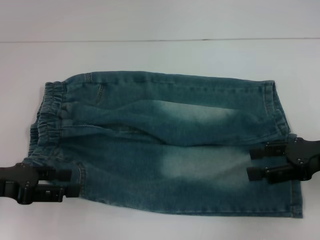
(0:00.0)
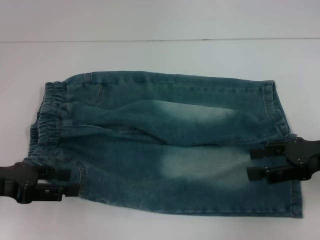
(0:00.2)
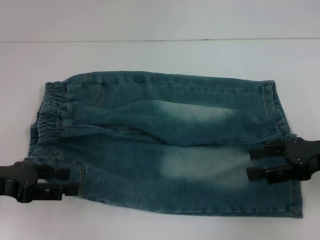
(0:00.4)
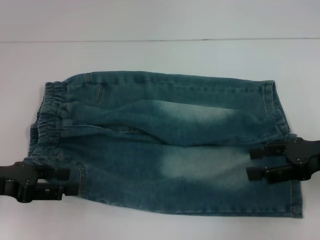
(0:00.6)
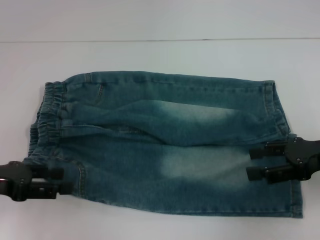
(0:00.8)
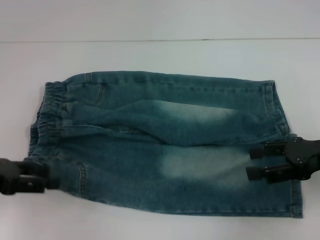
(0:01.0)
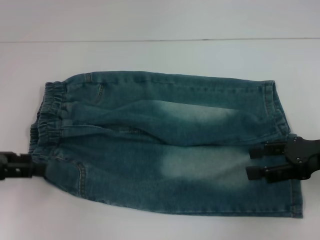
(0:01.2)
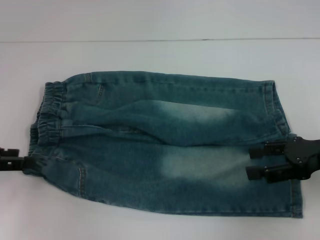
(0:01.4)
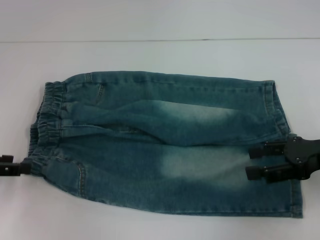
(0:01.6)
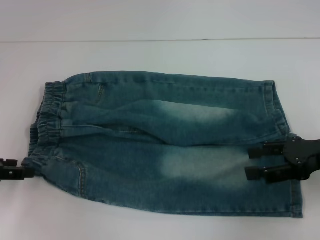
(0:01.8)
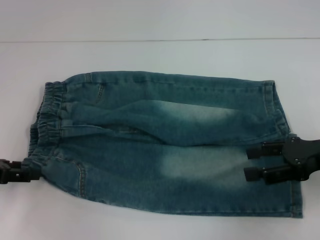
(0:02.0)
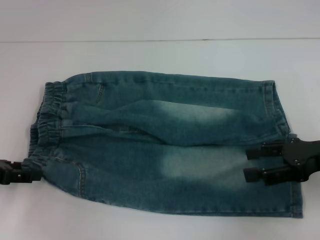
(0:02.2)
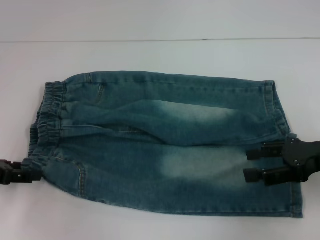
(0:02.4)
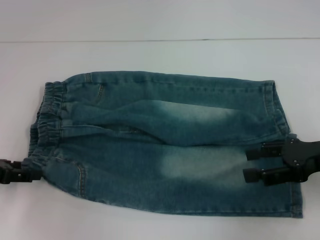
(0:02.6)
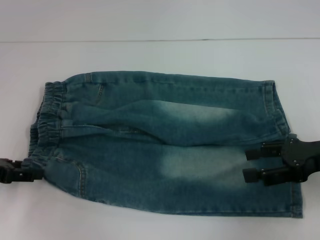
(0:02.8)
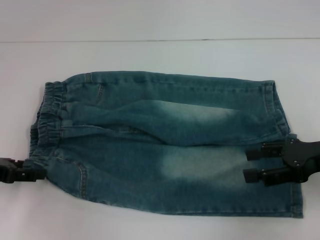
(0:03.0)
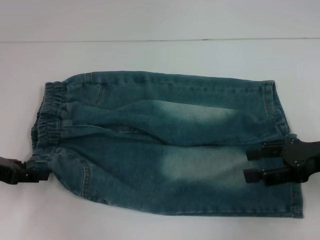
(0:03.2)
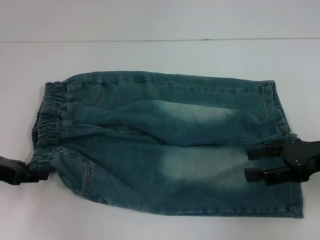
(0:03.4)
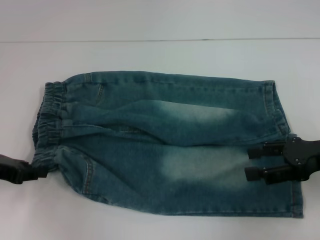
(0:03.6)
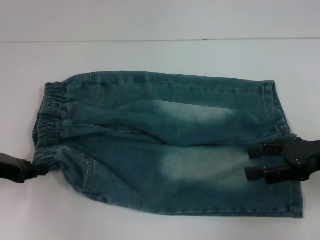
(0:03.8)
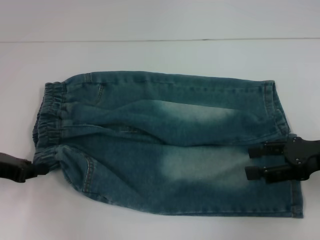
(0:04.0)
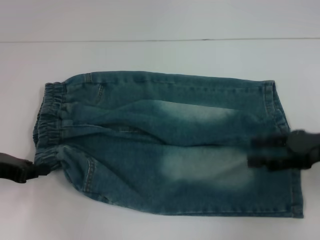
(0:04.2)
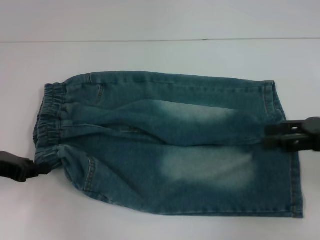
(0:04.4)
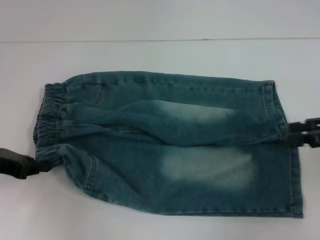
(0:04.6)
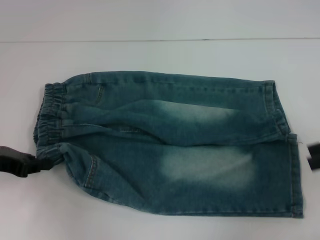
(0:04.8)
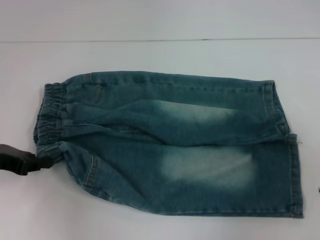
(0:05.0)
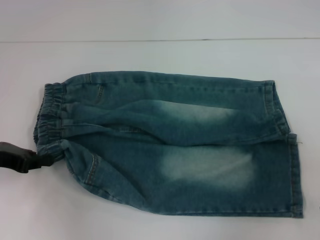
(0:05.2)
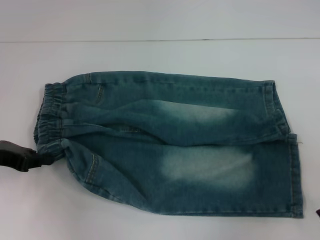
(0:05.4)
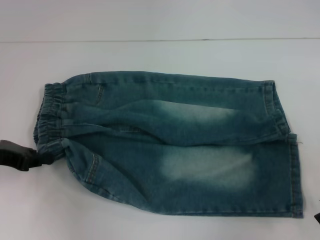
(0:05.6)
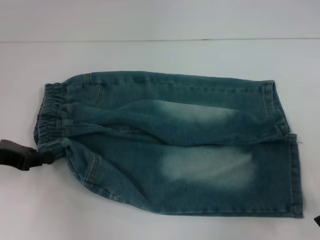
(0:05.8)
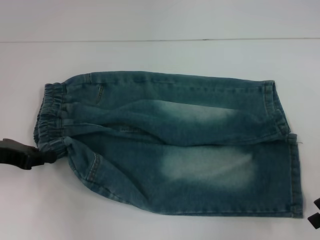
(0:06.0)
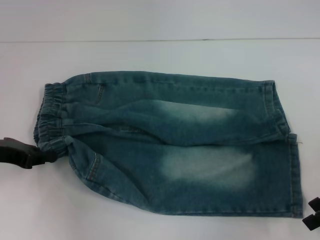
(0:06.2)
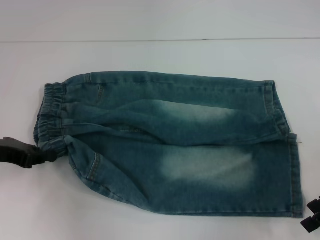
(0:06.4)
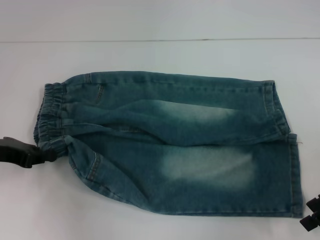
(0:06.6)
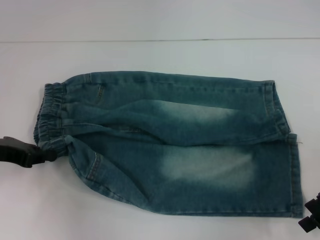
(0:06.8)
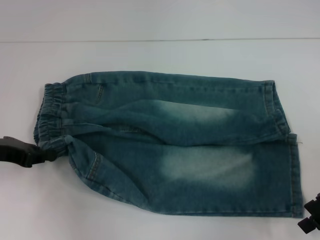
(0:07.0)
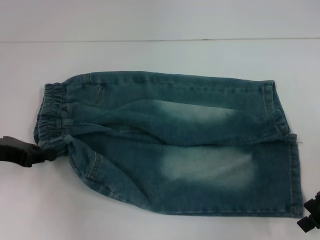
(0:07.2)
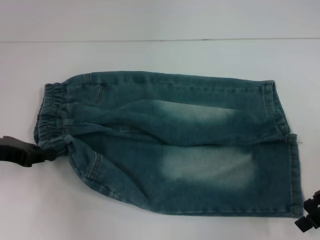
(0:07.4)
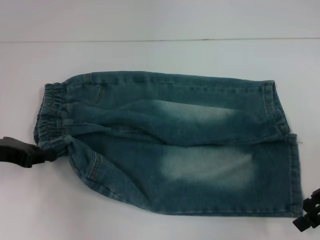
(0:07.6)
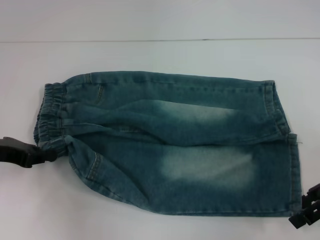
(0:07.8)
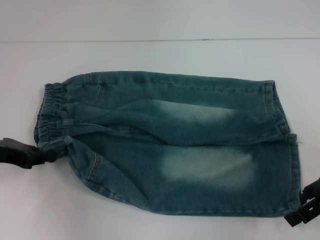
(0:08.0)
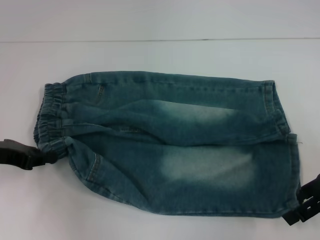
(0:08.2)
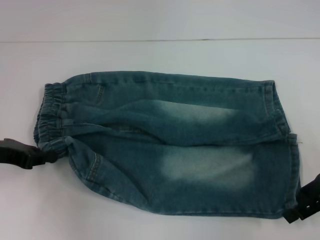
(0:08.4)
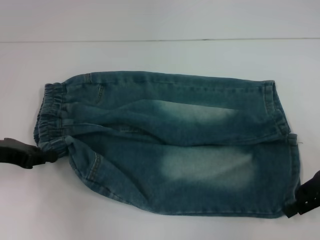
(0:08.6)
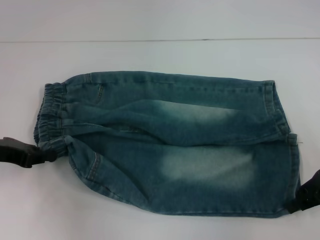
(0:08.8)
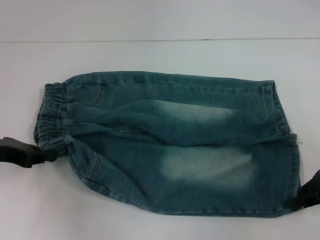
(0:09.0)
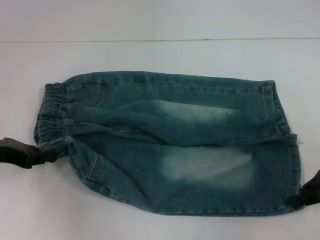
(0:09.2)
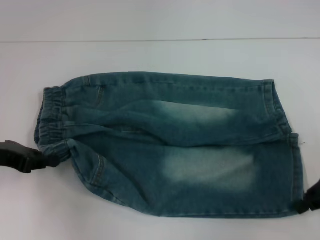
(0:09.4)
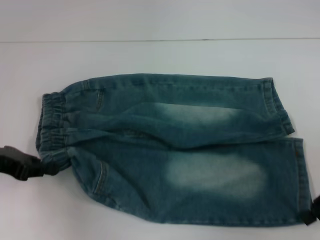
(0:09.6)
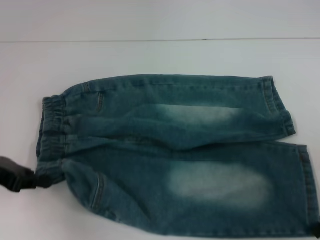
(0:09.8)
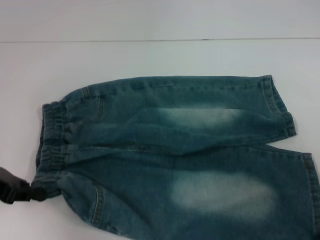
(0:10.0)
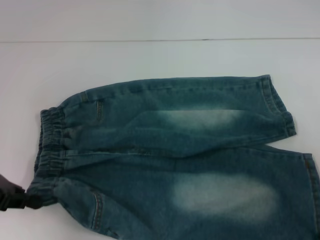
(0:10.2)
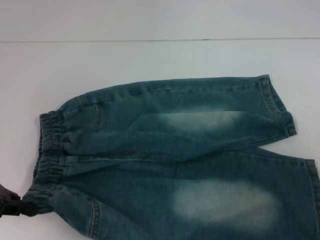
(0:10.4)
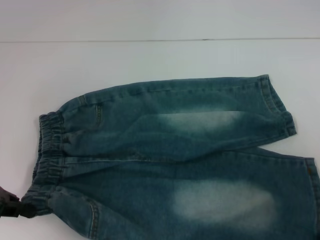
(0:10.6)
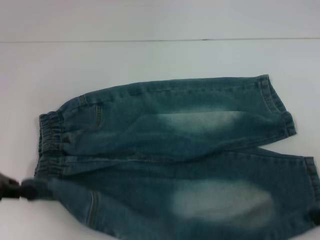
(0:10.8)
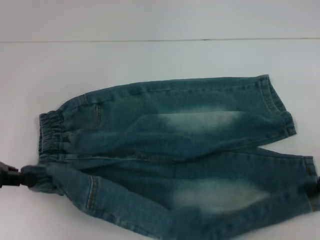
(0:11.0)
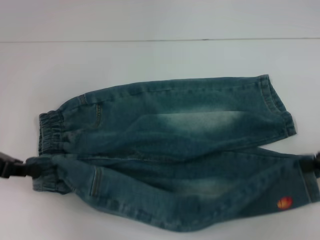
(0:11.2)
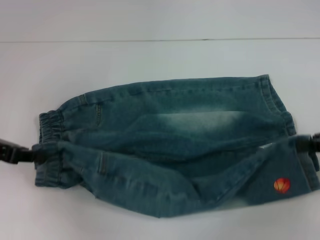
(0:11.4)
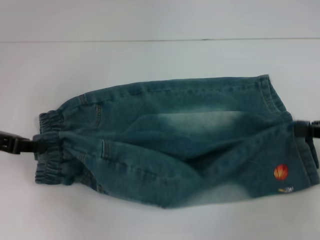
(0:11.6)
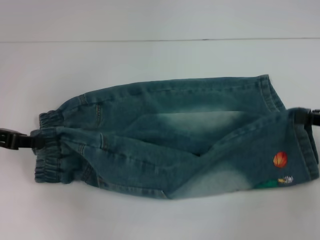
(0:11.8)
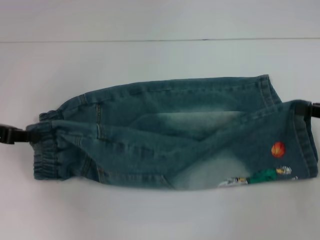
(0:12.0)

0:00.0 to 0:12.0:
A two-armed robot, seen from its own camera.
Step, 0:00.0 to 0:04.2: Hold the lower left waistband with your left hand.
Step, 0:04.4 to 0:09.2: Grab the lower right pant leg with your right hand.
0:00.0 to 0:01.6: The left gripper moves about 5 cm.
0:01.6 to 0:03.0: The grippers make only small movements.
0:03.0 to 0:04.4: The left gripper closes up.
0:06.0 to 0:07.6: The grippers stay close to where they were, moving slightly.
0:07.6 to 0:09.0: The right gripper closes its fingers.
0:09.0 to 0:10.4: The right gripper changes place by some 5 cm.
0:10.4 to 0:12.0: The right gripper changes place by about 5 cm.

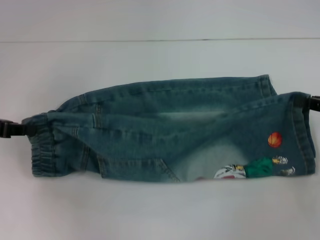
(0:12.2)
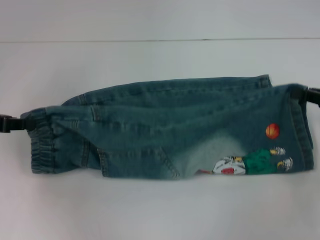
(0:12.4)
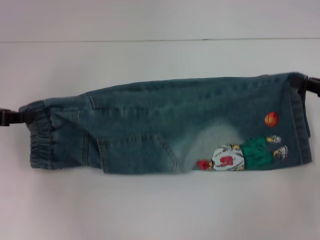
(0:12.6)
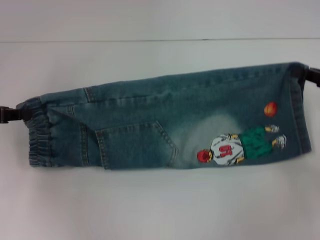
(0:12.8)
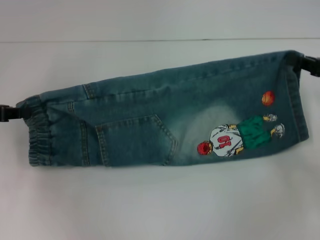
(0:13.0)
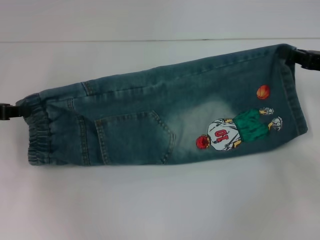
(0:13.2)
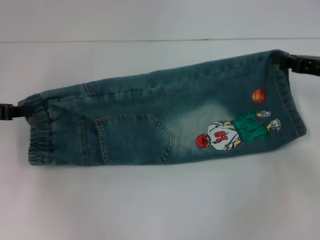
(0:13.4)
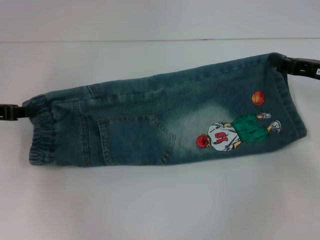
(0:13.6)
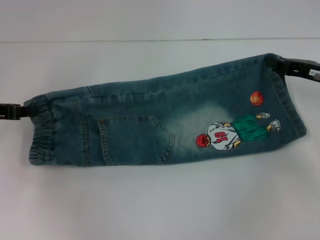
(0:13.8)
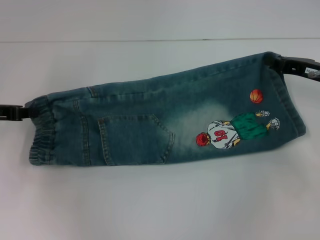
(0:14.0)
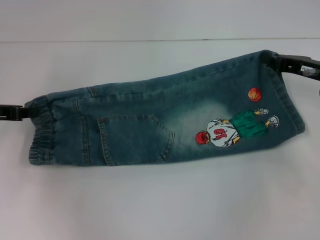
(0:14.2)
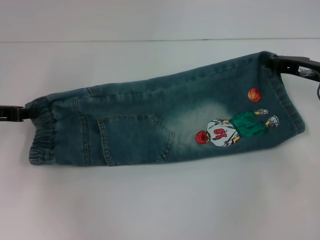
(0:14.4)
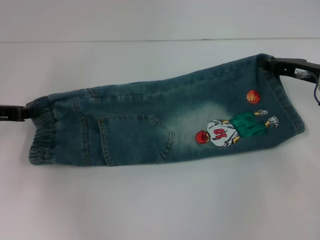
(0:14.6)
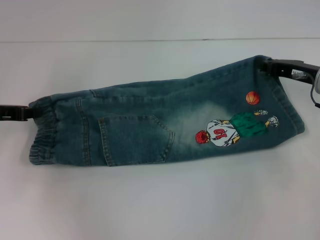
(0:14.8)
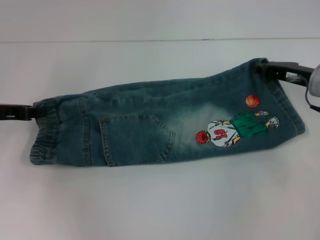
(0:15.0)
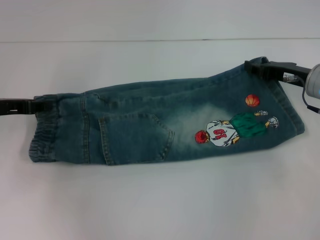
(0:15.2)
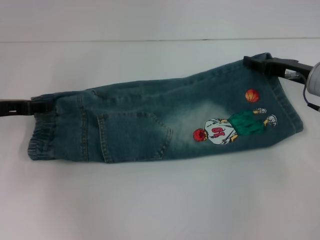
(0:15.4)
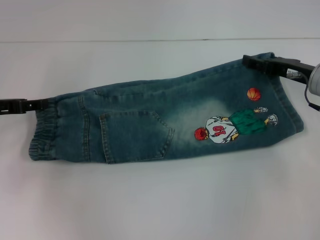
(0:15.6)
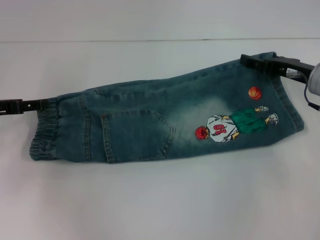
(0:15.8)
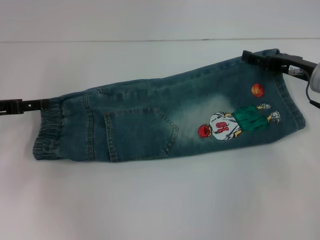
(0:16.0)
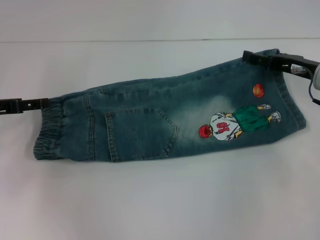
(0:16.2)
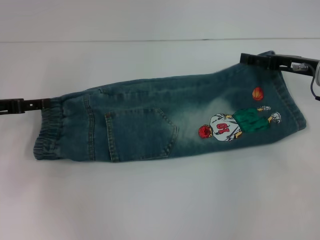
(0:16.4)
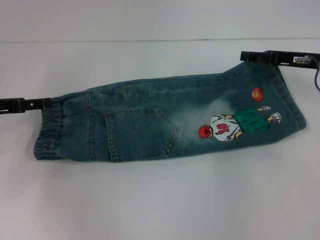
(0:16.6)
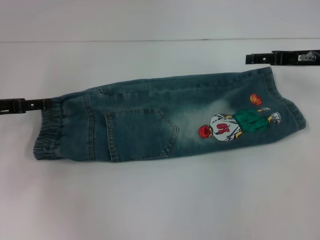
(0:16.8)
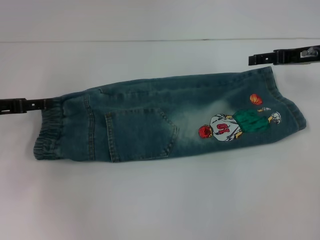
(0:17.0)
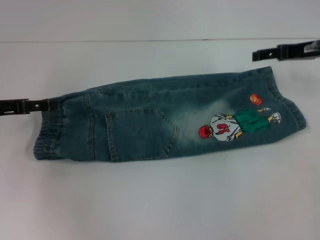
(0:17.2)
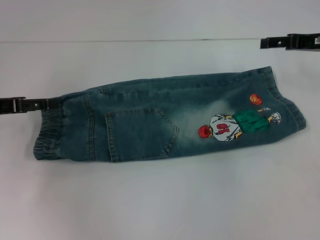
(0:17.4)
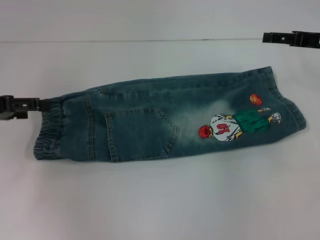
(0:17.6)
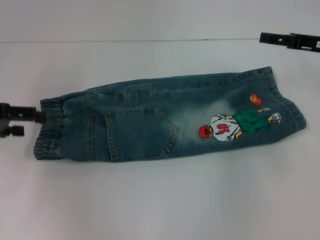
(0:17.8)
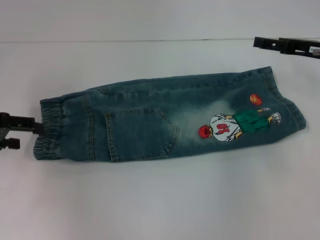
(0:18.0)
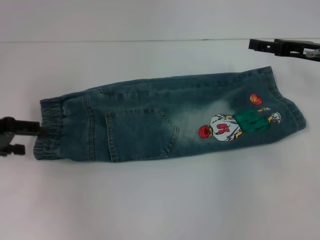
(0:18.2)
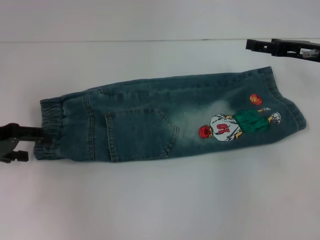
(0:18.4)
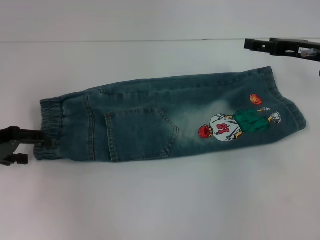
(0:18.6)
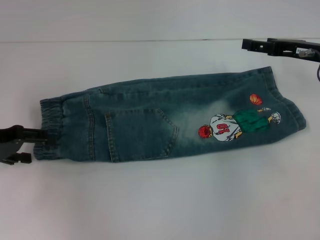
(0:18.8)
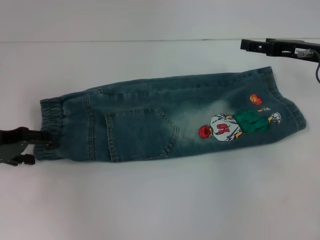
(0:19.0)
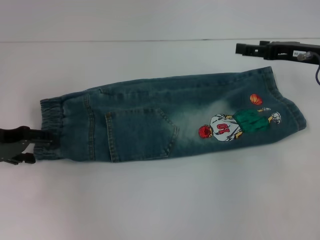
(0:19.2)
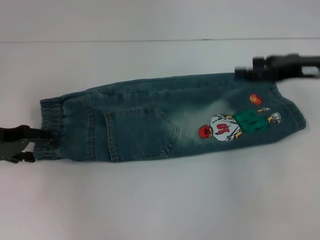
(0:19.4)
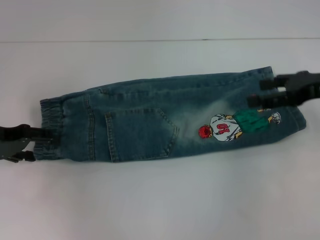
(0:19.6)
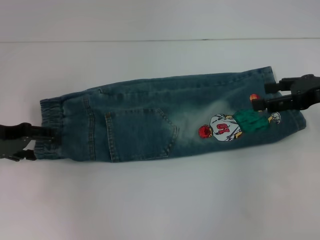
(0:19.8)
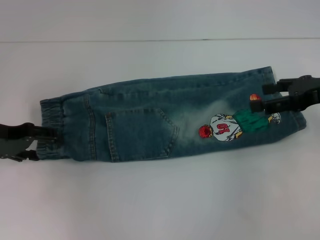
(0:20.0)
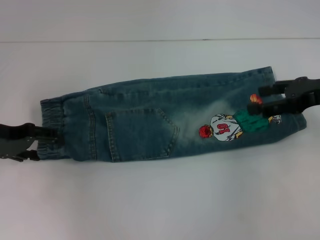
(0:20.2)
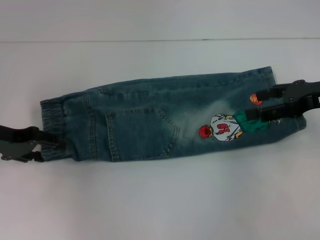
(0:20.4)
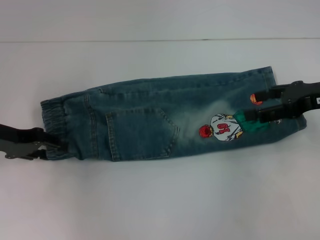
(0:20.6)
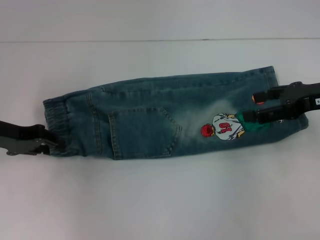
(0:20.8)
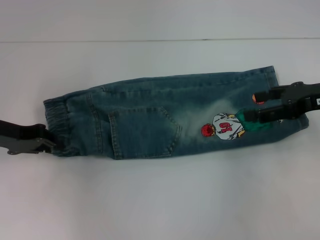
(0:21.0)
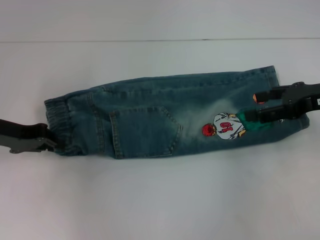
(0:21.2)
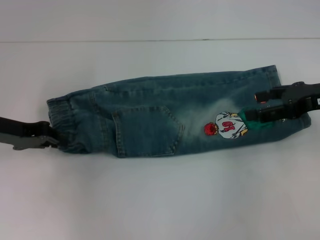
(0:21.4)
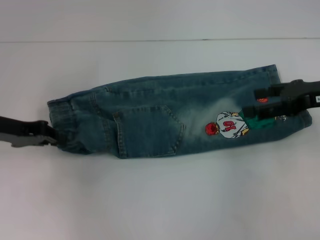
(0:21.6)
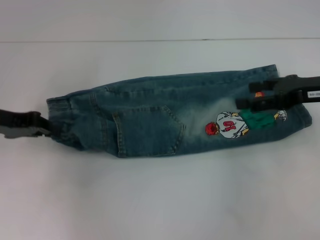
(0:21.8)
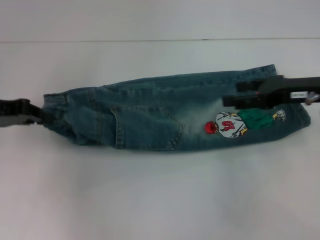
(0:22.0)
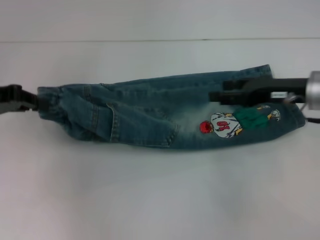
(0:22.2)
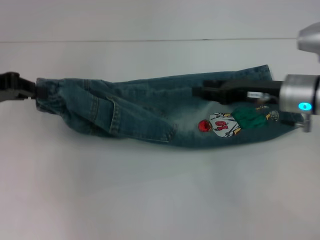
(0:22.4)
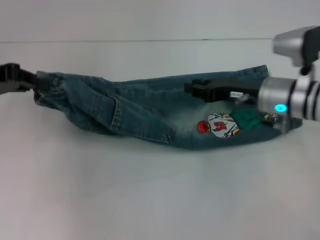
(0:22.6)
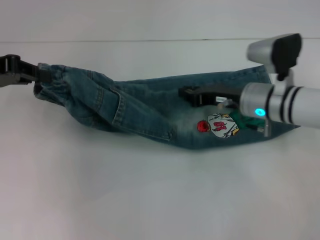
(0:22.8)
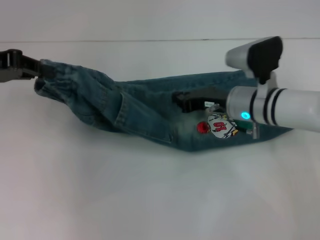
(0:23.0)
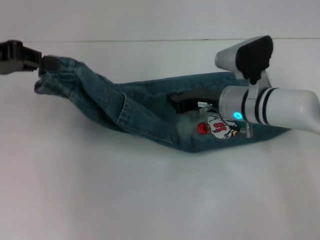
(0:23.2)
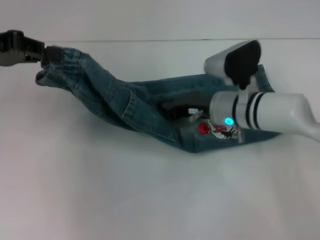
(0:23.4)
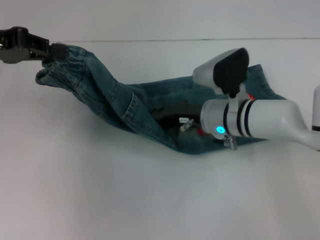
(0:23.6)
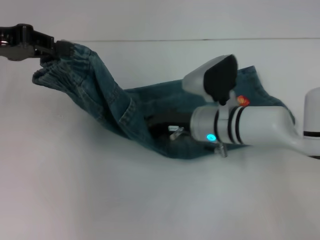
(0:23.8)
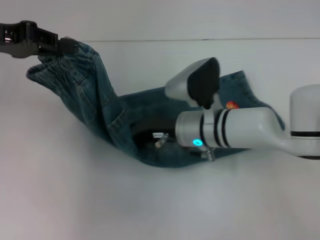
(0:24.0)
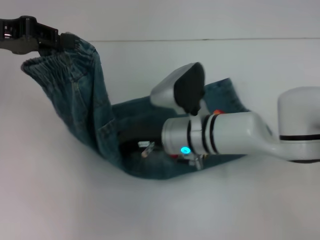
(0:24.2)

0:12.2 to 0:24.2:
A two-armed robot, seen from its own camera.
Step, 0:12.2 to 0:15.6: Fold upward with your left hand.
Step, 0:15.8 to 0:16.6: Fold upward with your right hand.
Step, 0:16.8 to 0:21.6: Hold the waistband with your left hand.
0:12.2 to 0:13.8: The right gripper travels forward and to the left by roughly 10 cm.
0:13.8 to 0:15.2: There are only small adjustments of the grippers.
0:15.2 to 0:16.6: The right gripper opens its fingers; the left gripper opens its fingers.
0:18.2 to 0:19.8: The right gripper changes place by approximately 5 cm.
0:19.8 to 0:21.2: The left gripper closes its fingers.
0:21.2 to 0:22.6: The right gripper moves to the left and downward, roughly 15 cm, and closes its fingers. The left gripper shifts some 10 cm upward.
0:22.6 to 0:24.2: The left gripper ends up about 5 cm from where it was. Meanwhile the right gripper shifts about 15 cm to the left, and closes.
